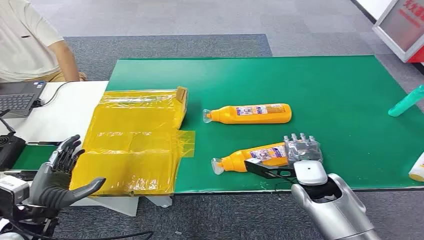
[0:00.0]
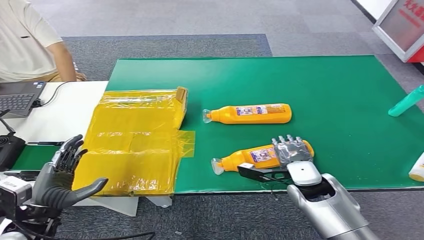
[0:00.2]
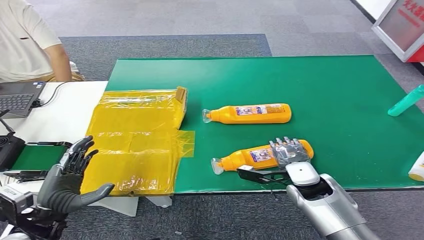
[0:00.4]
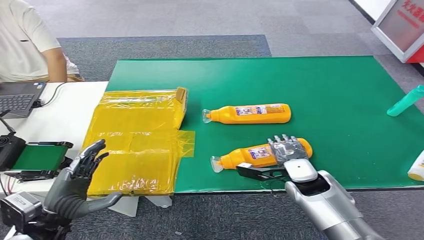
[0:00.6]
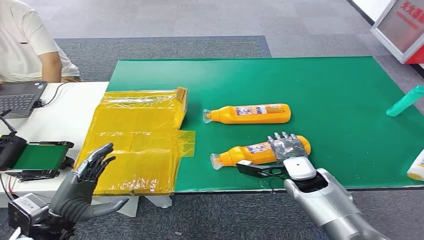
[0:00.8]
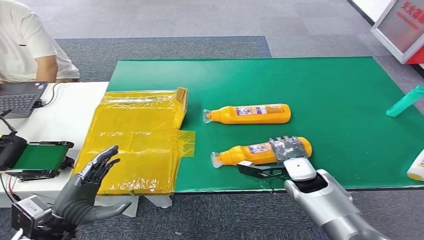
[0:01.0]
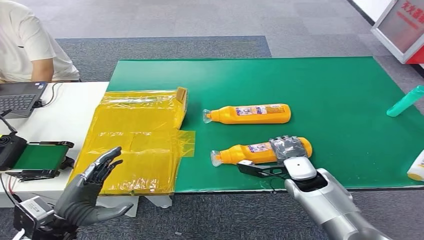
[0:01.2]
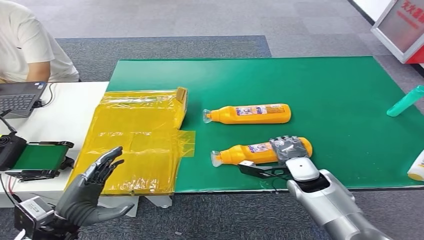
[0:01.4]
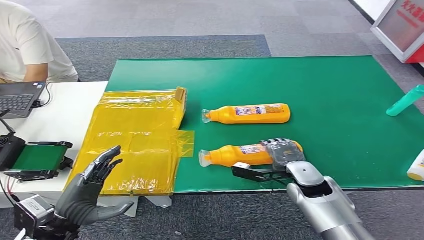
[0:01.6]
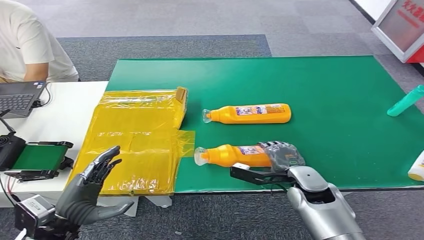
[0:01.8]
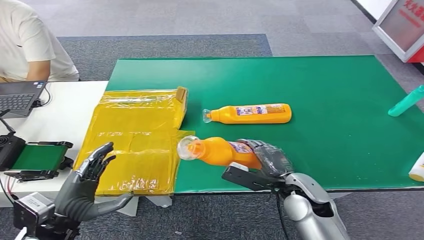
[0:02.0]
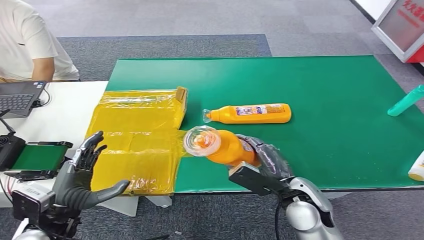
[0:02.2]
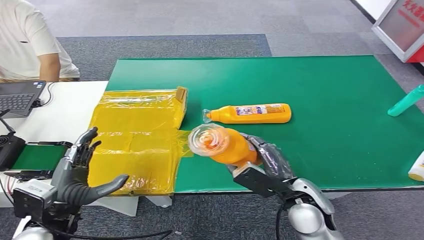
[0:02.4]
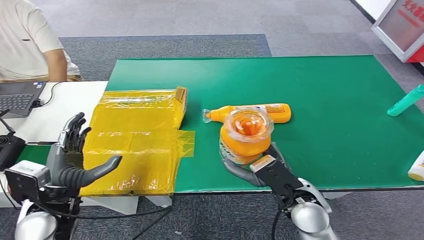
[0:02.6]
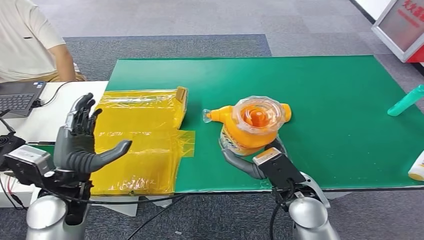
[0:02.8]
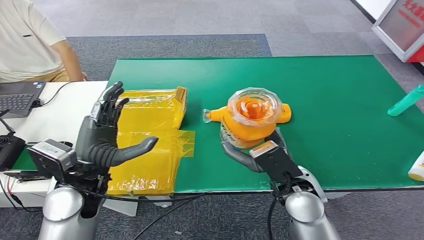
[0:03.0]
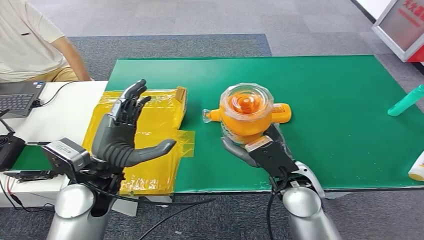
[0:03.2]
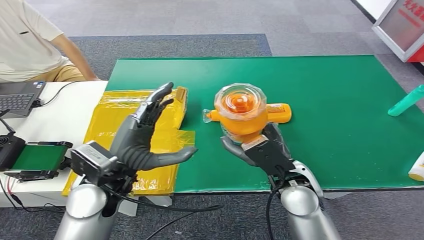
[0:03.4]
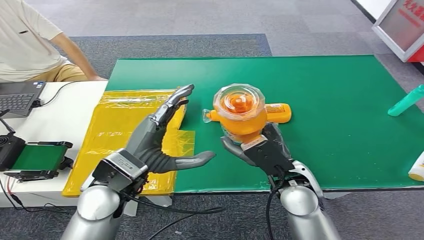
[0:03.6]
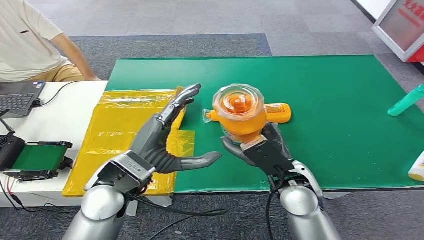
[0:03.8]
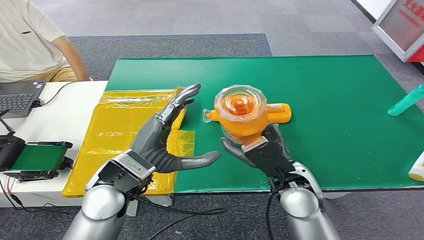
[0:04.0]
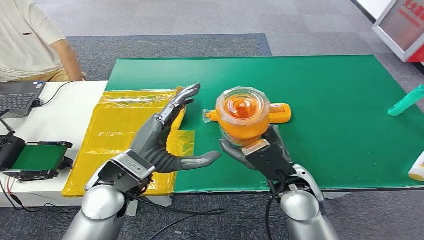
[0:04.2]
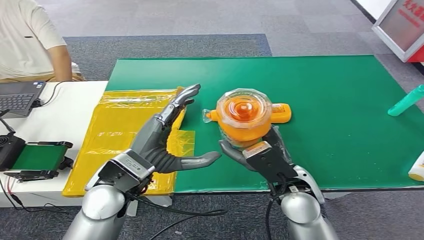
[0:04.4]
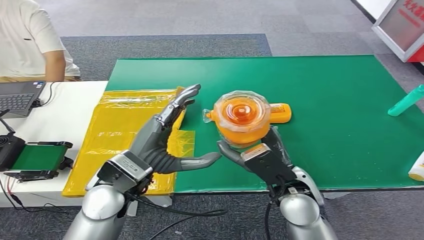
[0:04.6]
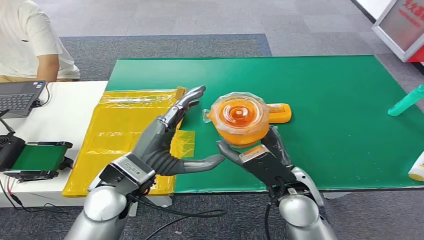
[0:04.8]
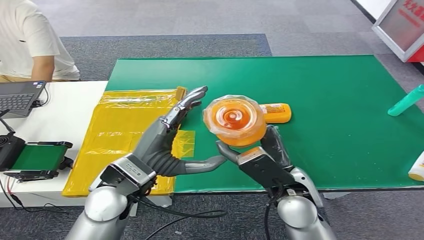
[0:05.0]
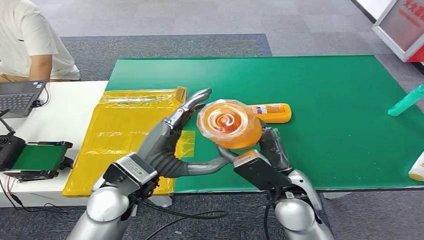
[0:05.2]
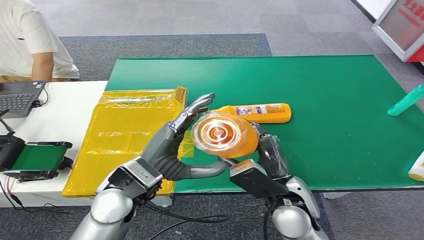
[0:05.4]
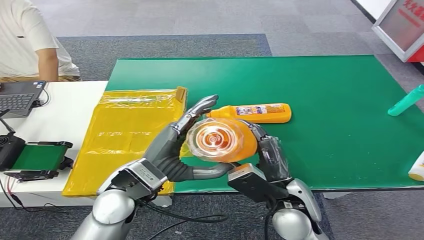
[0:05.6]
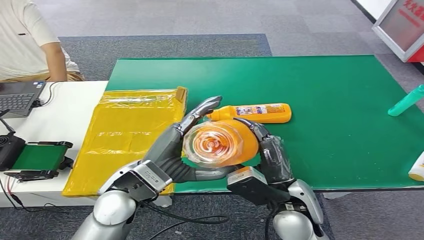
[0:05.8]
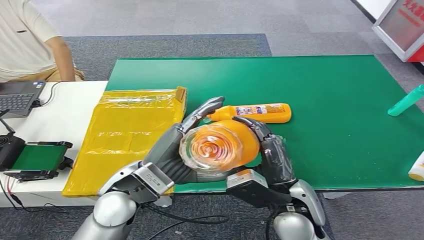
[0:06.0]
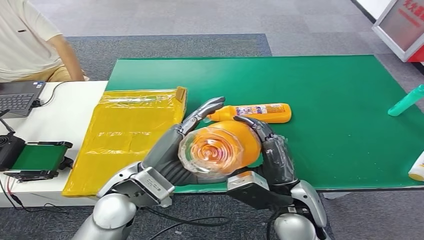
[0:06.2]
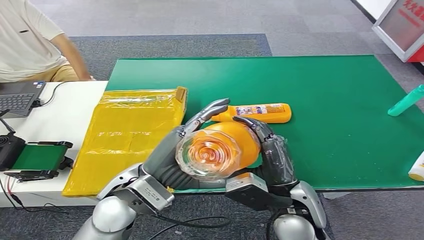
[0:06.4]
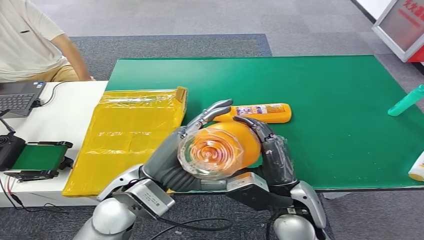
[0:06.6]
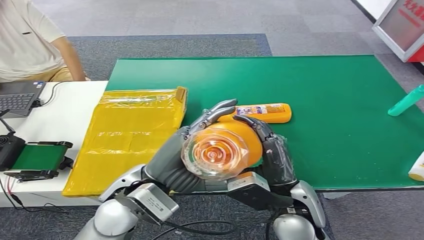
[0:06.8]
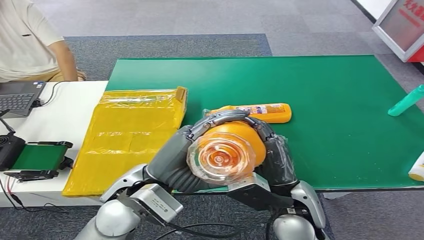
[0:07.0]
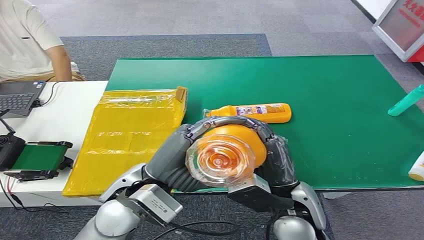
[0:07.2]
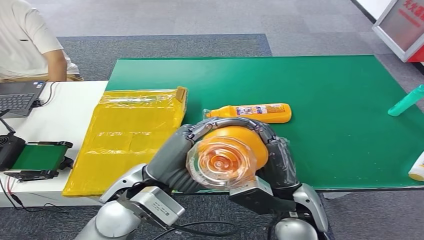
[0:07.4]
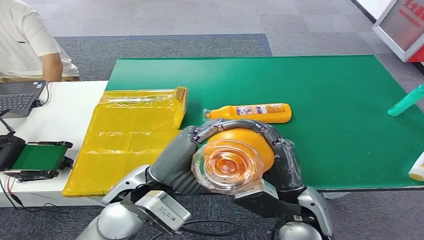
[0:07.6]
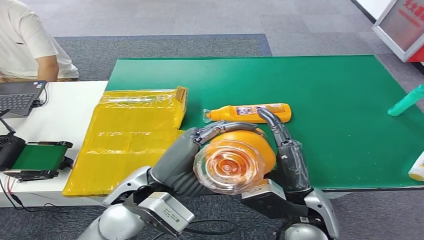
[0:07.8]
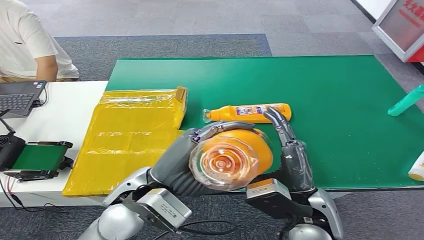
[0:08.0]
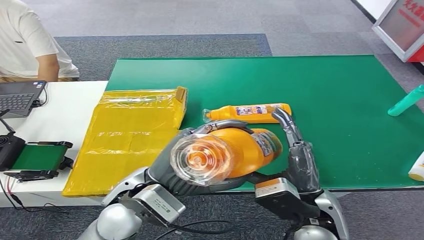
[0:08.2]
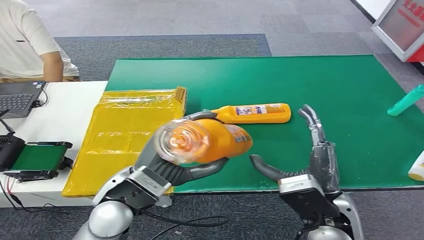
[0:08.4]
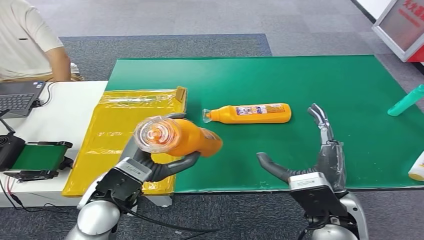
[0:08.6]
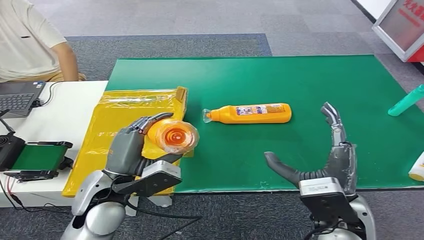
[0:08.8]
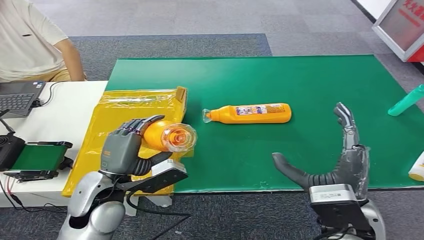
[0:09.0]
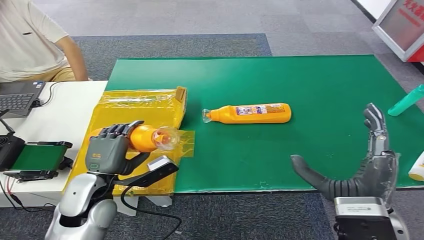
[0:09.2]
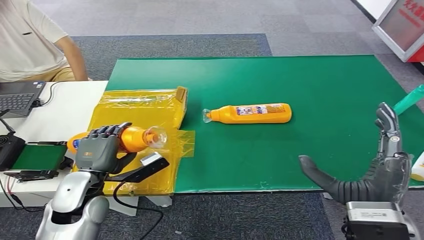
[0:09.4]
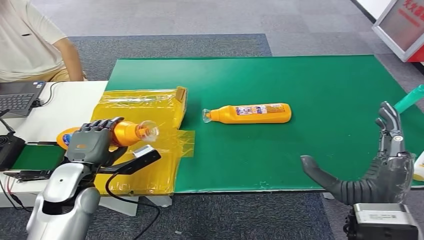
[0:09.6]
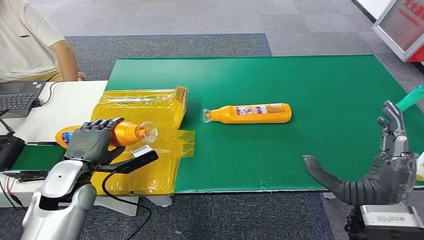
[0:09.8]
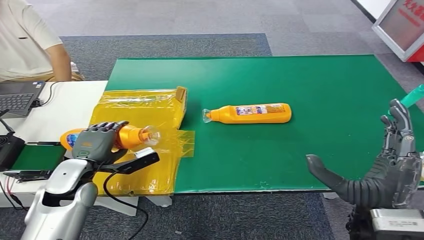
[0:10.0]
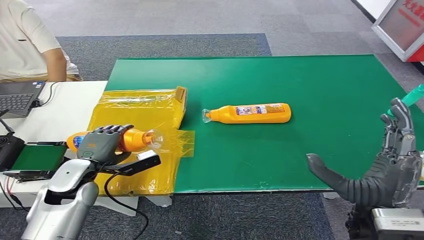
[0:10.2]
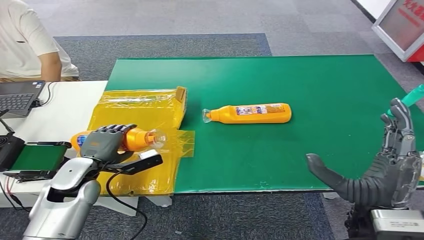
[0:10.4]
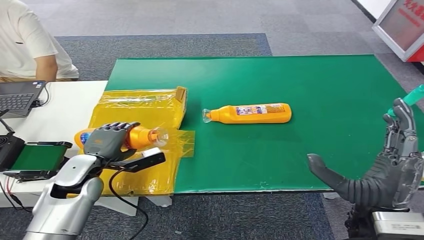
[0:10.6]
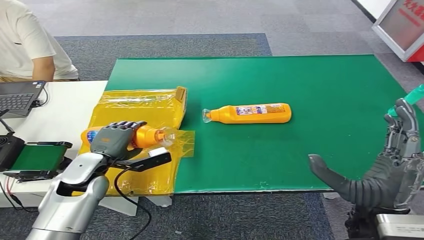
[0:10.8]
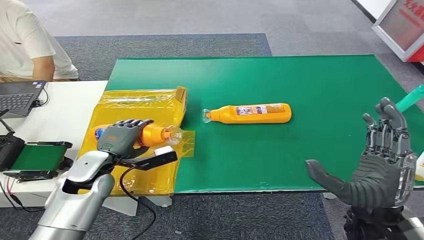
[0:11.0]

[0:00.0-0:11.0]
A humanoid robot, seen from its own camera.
Step, 0:00.0 to 0:02.6: Pick up the bottle from the table.
Step, 0:05.0 to 0:10.8: Turn the bottle to the front side.
0:03.2 to 0:04.8: The left hand heads to the right, covering about 5 cm.
0:04.8 to 0:07.8: The hands move only a little.
0:09.4 to 0:11.0: The left hand goes approximately 5 cm forward.
